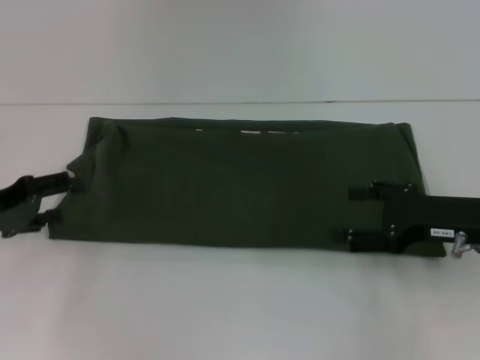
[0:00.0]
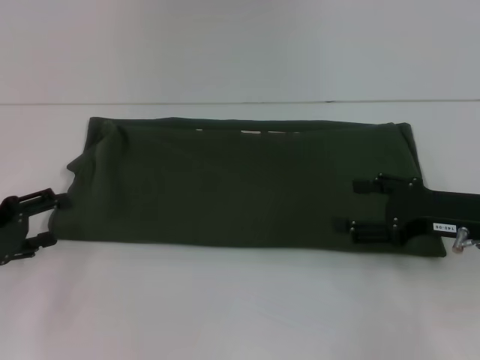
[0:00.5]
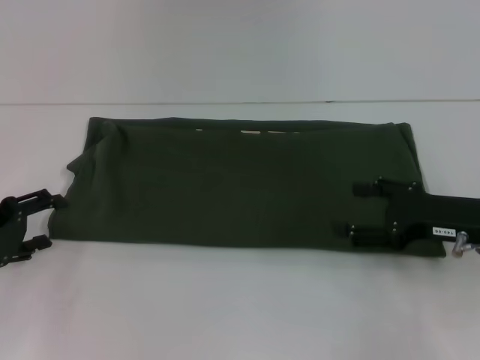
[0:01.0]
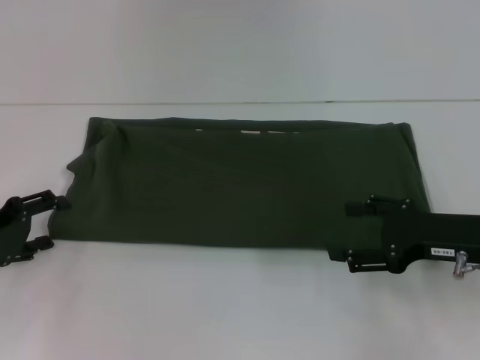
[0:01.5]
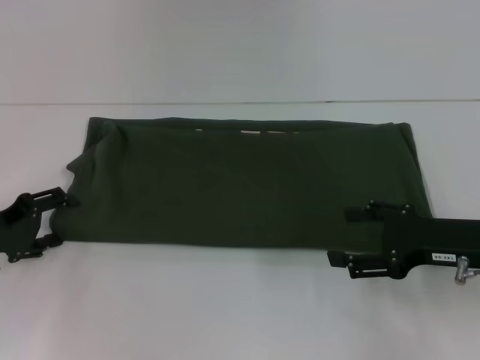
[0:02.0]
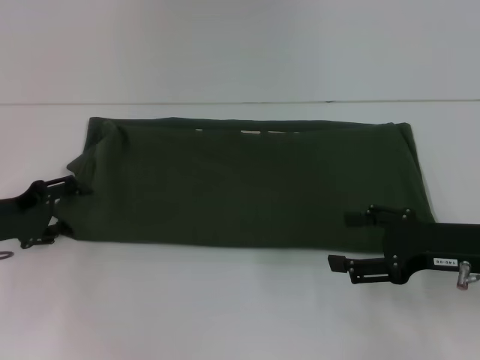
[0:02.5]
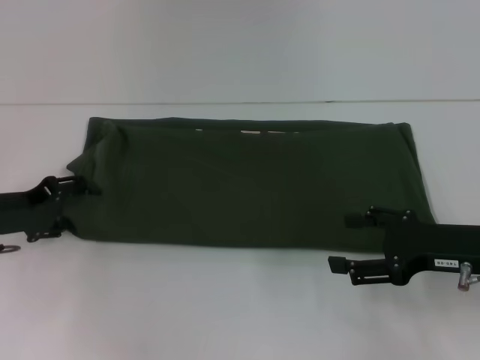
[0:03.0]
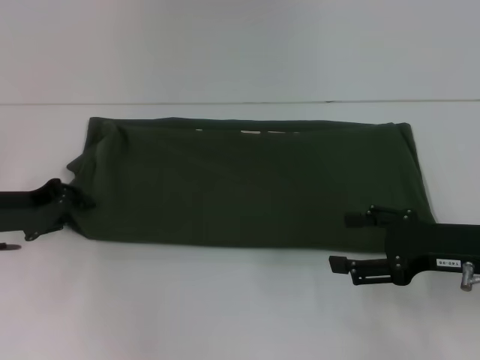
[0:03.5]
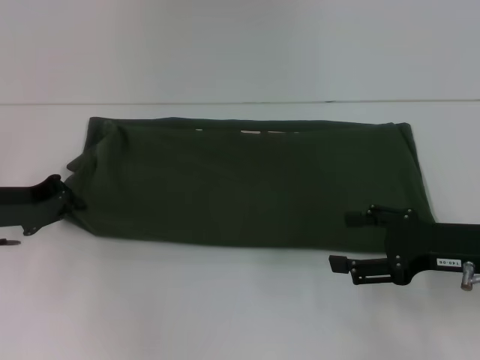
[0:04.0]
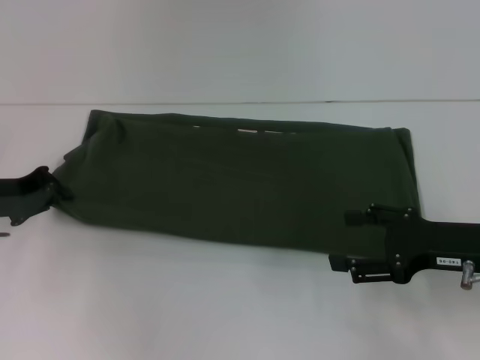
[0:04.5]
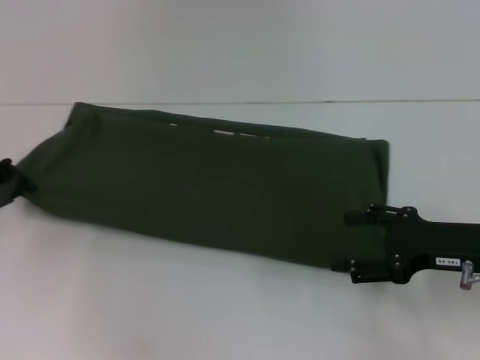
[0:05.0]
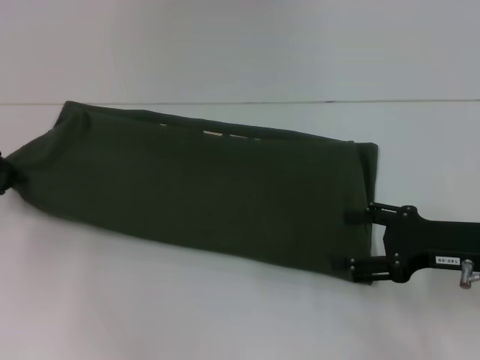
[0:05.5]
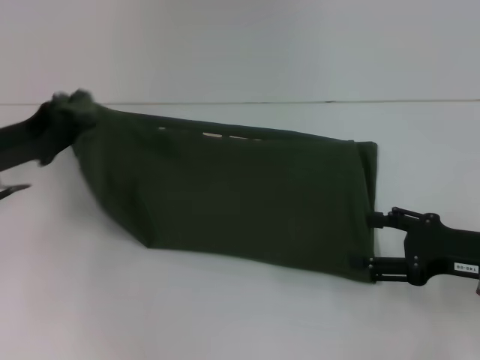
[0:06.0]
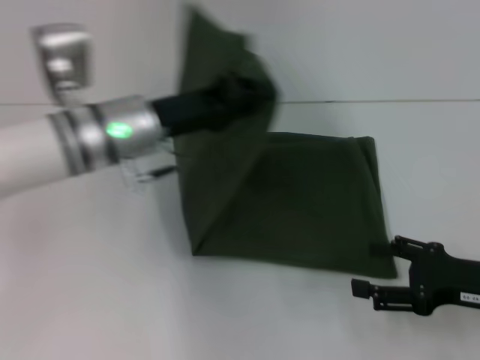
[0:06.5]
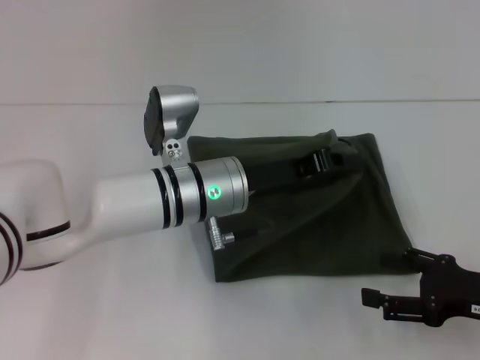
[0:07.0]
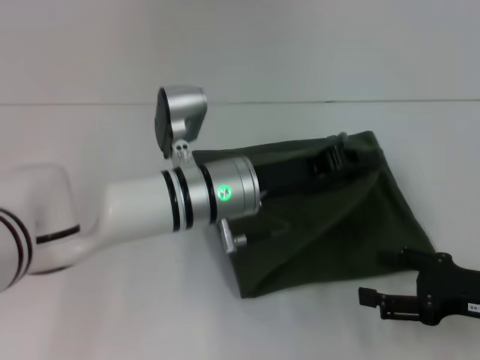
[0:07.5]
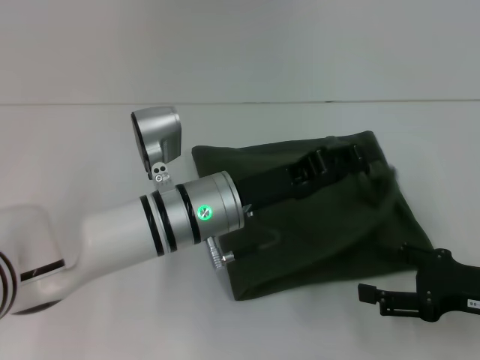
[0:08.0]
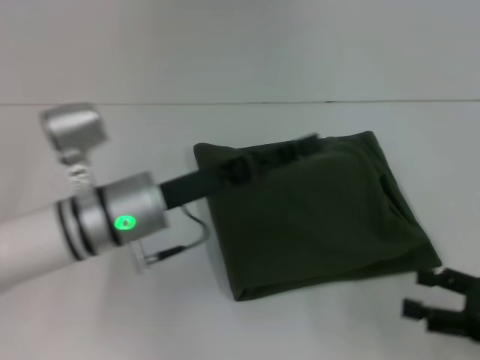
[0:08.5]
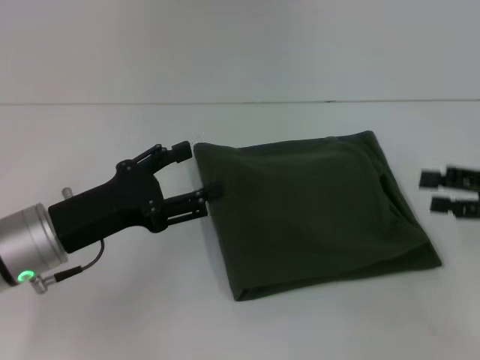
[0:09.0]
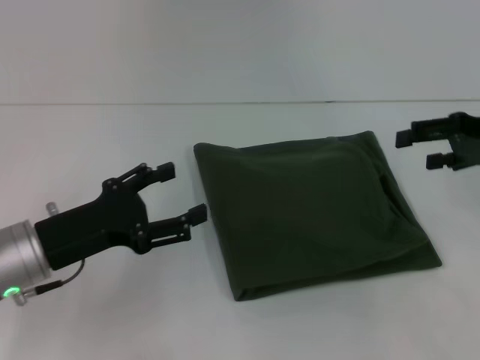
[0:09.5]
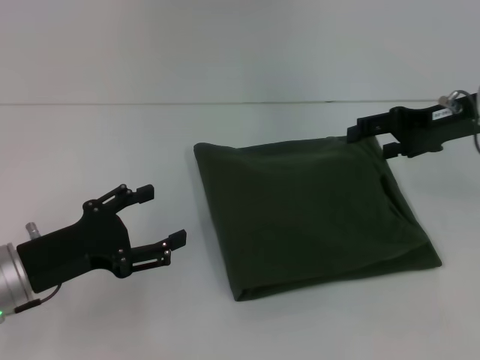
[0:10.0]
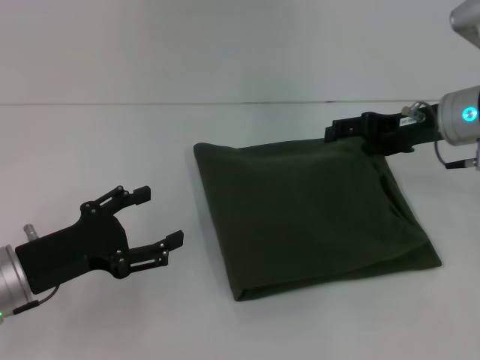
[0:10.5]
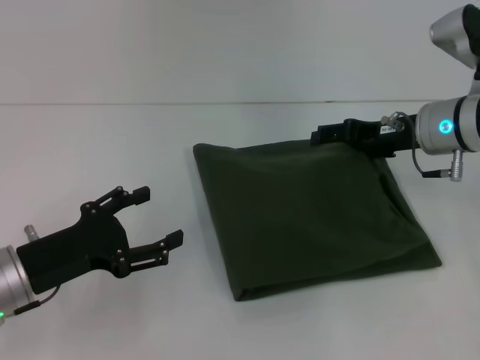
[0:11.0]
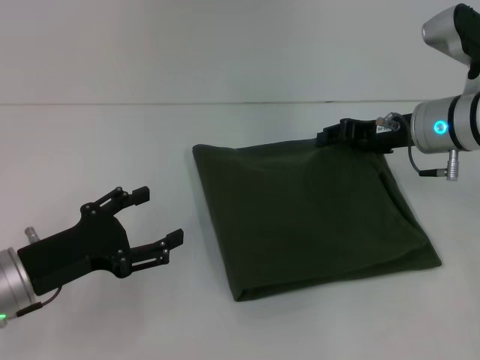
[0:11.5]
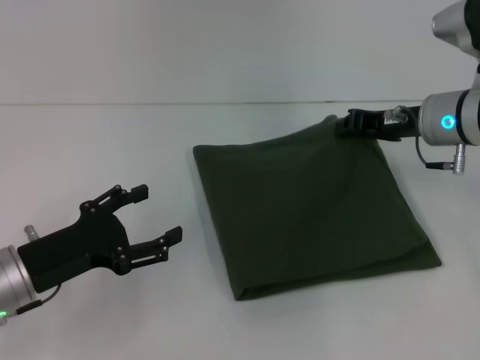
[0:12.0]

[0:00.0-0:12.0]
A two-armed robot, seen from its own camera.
Step, 0.0 to 8.5 s: Fold the clothes with your left hand.
0.0 to 2.0 s: The grippers stay close to where they were, moving slightly.
2.0 to 4.0 s: The left gripper shifts by about 5 cm, and closes.
6.0 to 8.0 s: The left gripper goes roughly 25 cm to the right.
8.0 to 10.0 s: The left gripper travels to the left by roughly 20 cm, and opens its fingers; the right gripper heads forward and upward, covering roughly 20 cm.
10.0 to 12.0 s: The right gripper shifts by some 5 cm, and closes its fingers.

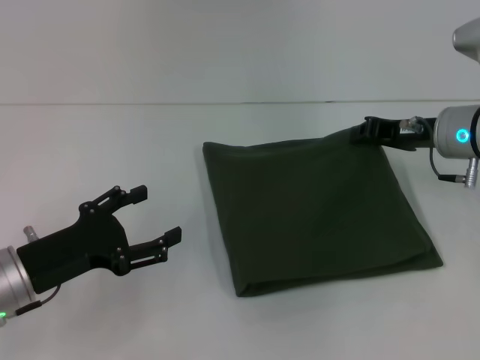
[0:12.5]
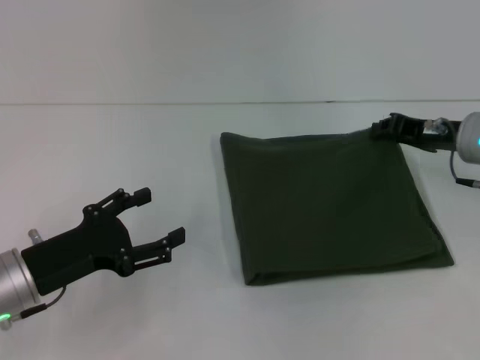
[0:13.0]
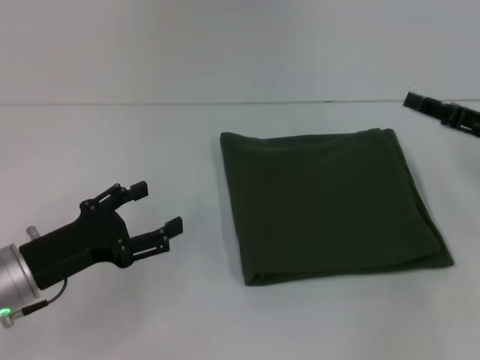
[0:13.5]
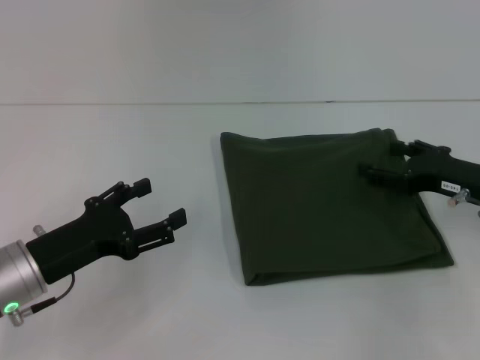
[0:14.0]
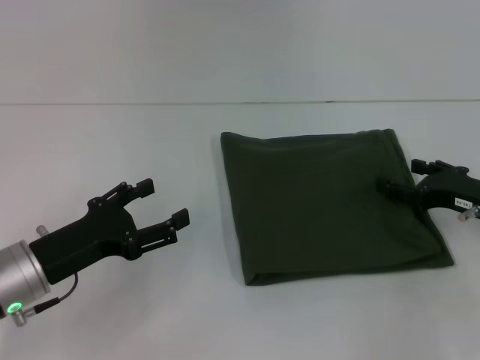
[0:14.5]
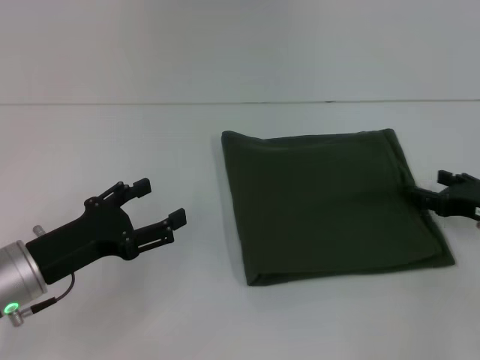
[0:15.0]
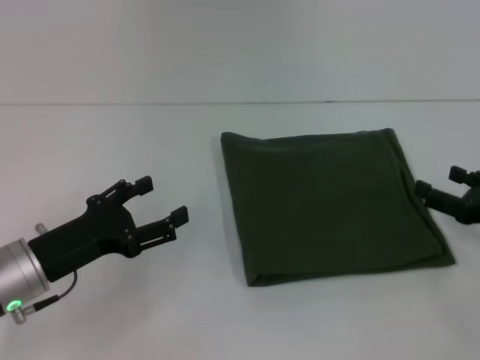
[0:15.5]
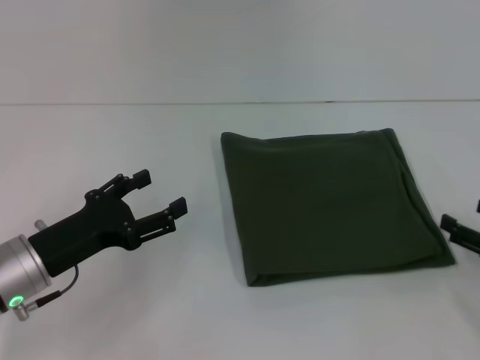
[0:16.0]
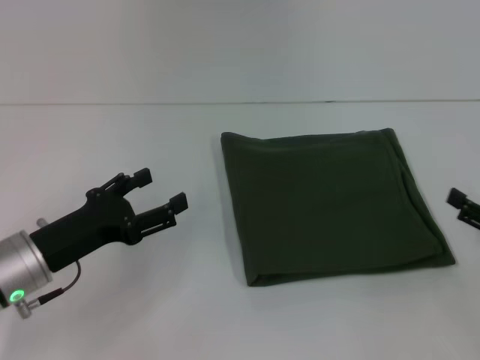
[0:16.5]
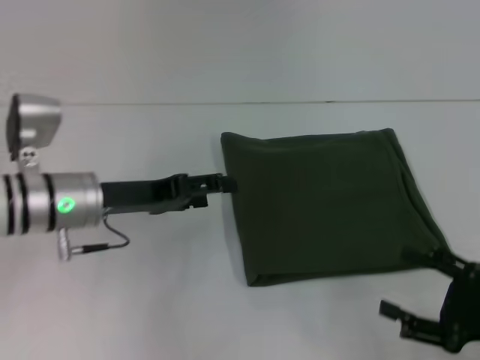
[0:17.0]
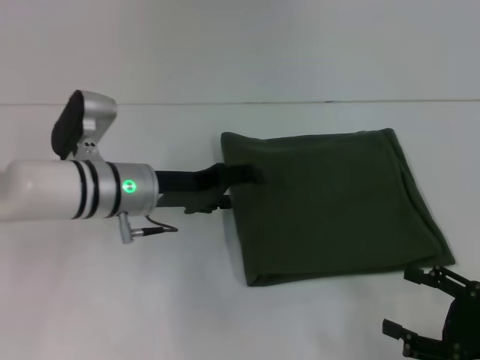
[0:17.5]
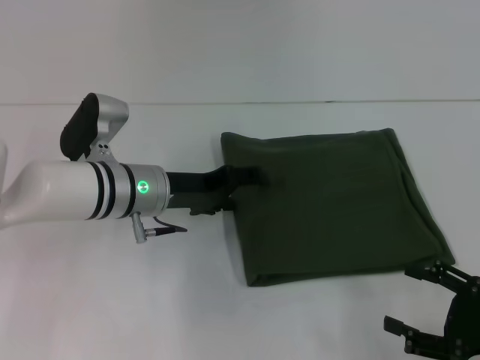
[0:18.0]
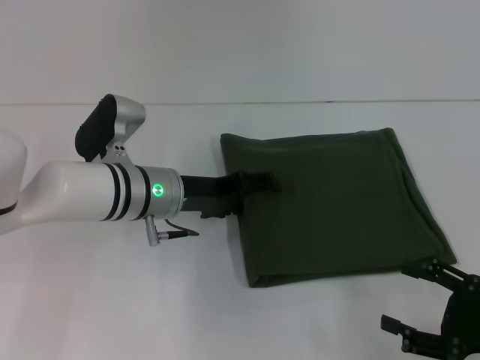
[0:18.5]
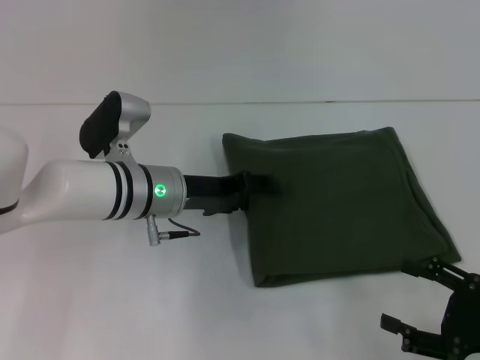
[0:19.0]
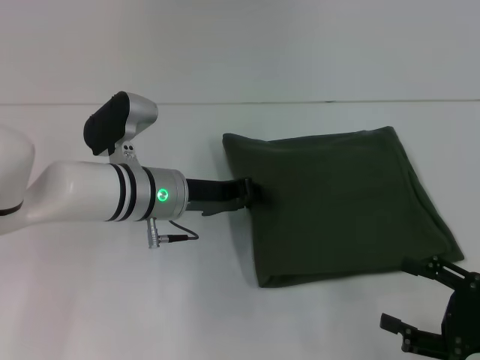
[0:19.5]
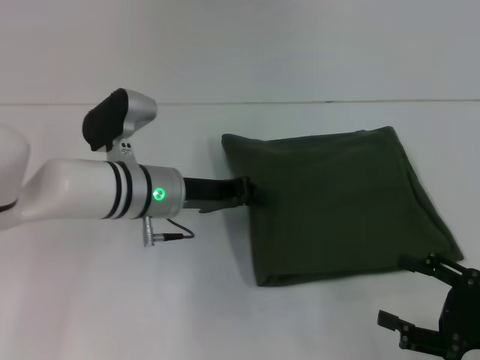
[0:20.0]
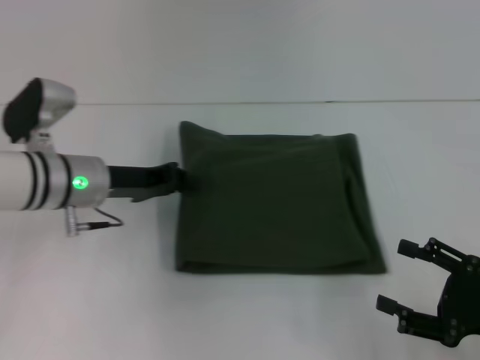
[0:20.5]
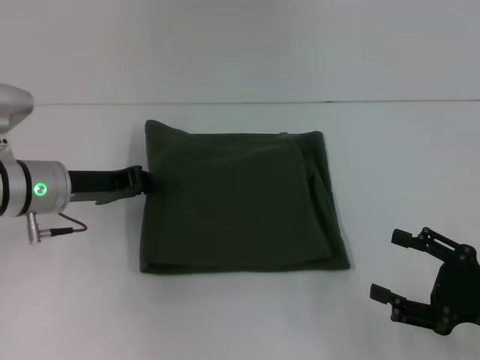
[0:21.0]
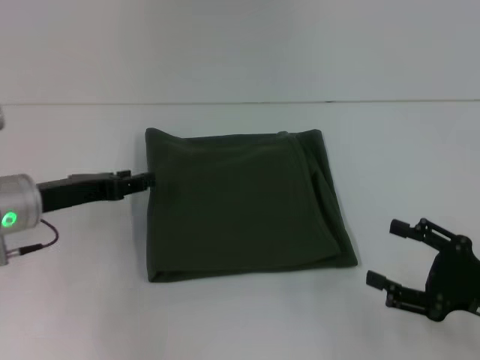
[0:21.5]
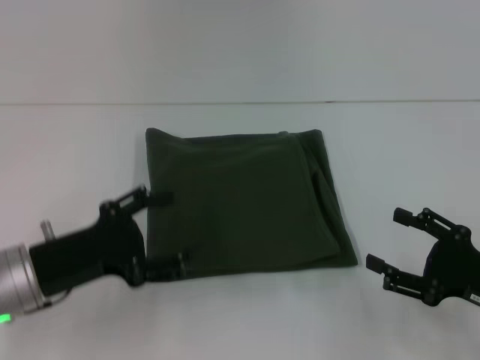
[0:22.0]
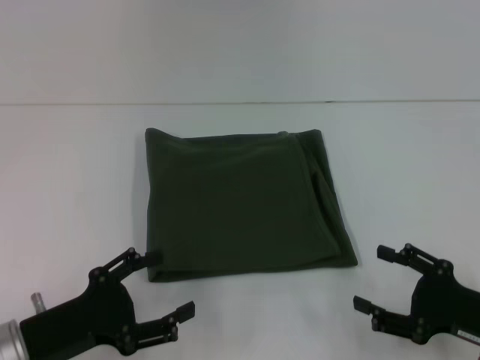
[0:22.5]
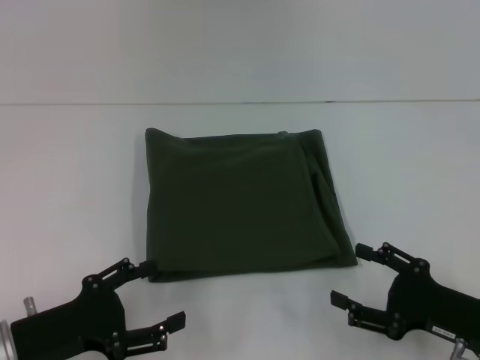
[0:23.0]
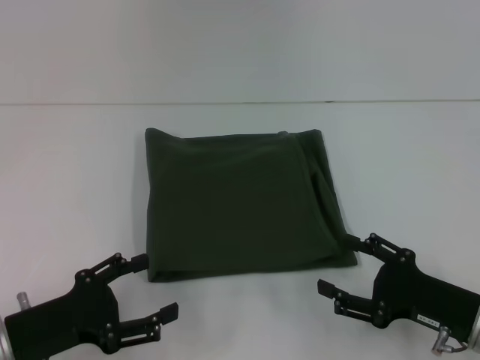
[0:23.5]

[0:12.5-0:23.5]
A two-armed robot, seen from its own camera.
12.5 to 14.5 s: The right gripper moves backward, to the right and downward, roughly 10 cm, and opens its fingers.
14.5 to 16.0 s: The right gripper shifts roughly 10 cm backward and to the right.
16.0 to 18.0 s: The left gripper travels forward and to the right by approximately 15 cm. The right gripper travels backward by roughly 5 cm.
18.0 to 20.0 s: The left gripper closes up.
20.0 to 21.5 s: The left gripper travels to the left by approximately 15 cm.
21.5 to 23.5 s: The left gripper is displaced backward by roughly 15 cm, and opens up. The right gripper moves approximately 5 cm.

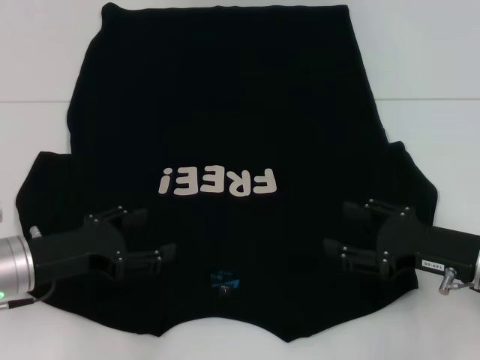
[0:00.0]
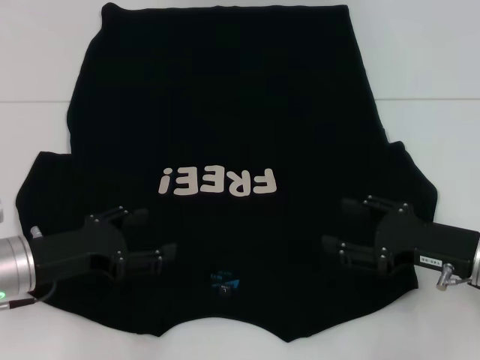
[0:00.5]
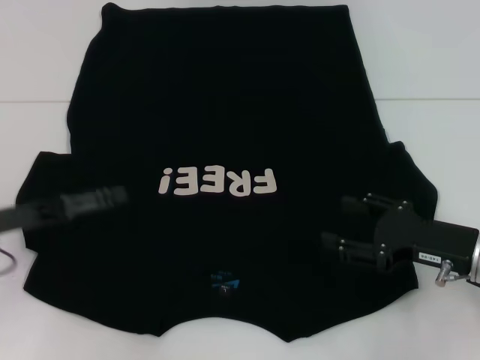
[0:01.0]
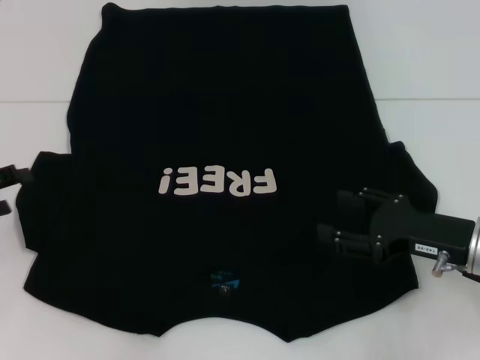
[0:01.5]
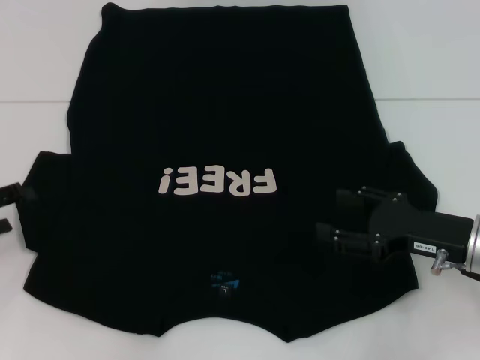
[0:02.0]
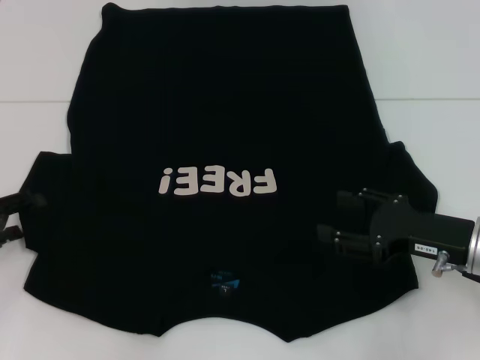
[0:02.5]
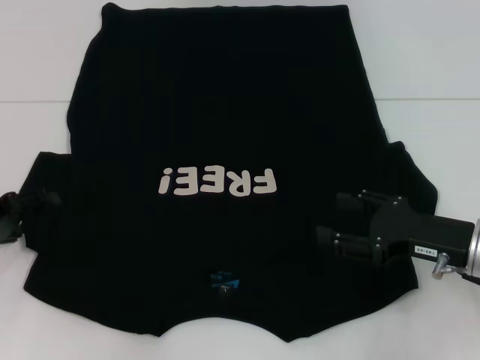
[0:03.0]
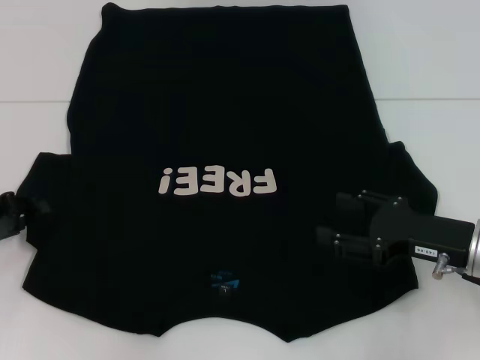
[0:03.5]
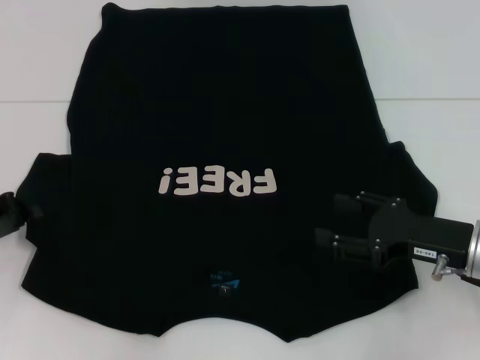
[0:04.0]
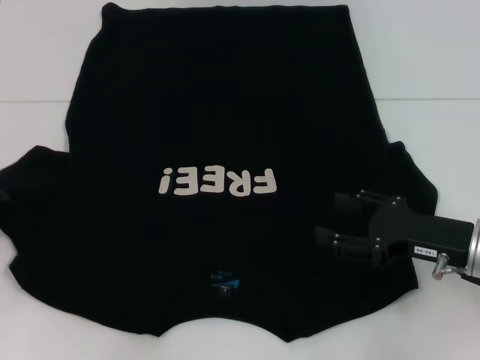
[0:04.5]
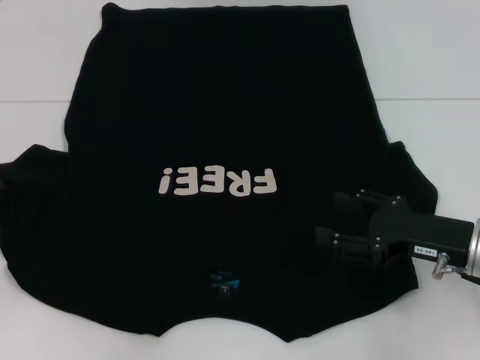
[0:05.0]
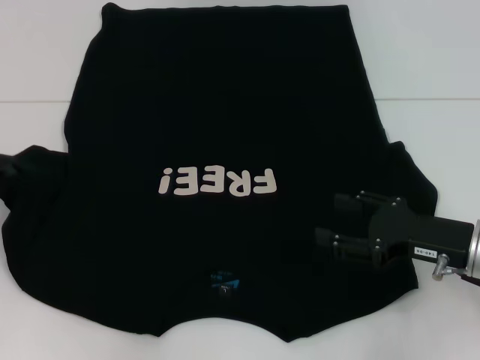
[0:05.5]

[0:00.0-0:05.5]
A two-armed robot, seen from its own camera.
0.0 to 2.0 s: The left gripper goes roughly 10 cm to the left.
2.0 to 3.5 s: The left gripper closes.
3.5 to 5.5 s: The left gripper closes.
